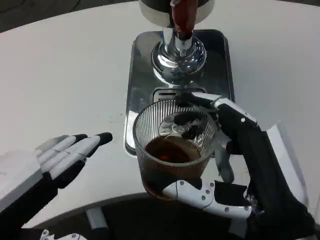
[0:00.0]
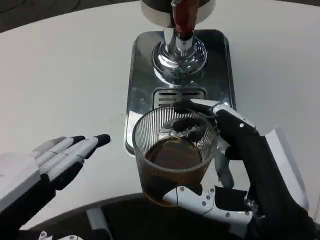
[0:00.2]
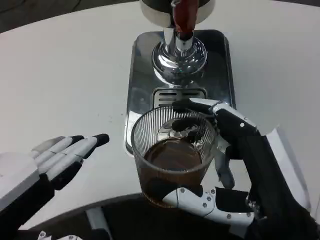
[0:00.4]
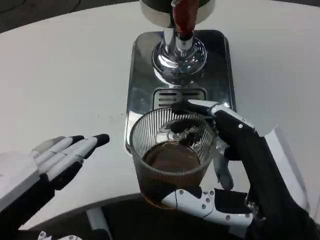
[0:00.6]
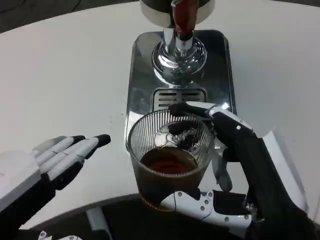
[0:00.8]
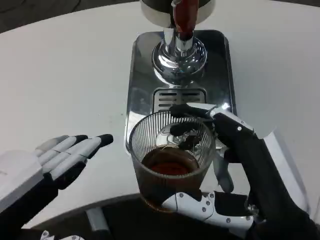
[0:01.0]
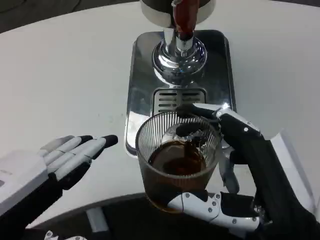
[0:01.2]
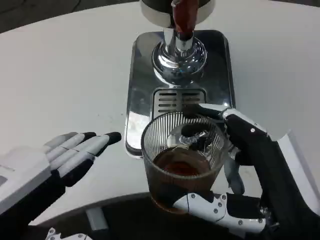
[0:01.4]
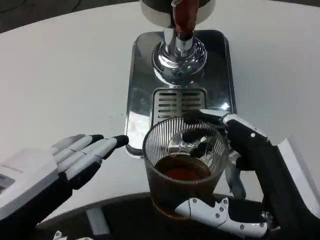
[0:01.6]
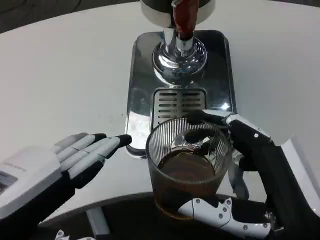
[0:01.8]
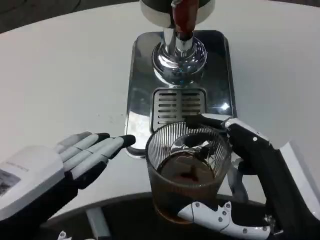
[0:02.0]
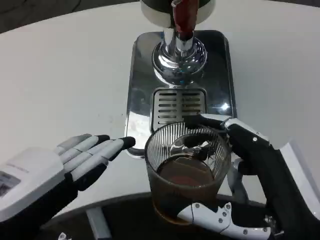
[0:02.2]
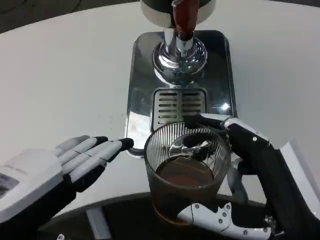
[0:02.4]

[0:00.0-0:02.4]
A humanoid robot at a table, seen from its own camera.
Task of the whole recording: Grasp the cup under the faucet to collect the drink, then remove the cup.
0:00.0 to 0:01.2: Neither hand changes place.

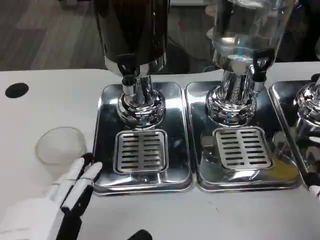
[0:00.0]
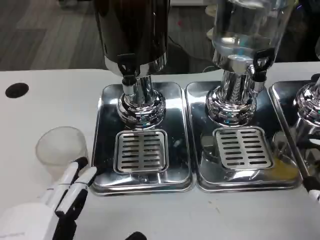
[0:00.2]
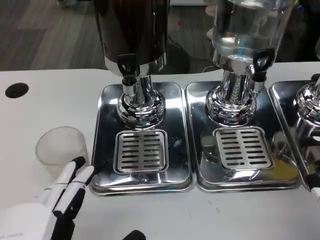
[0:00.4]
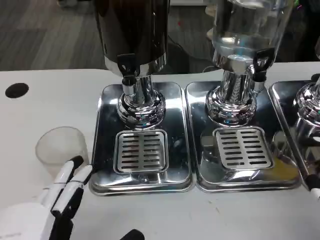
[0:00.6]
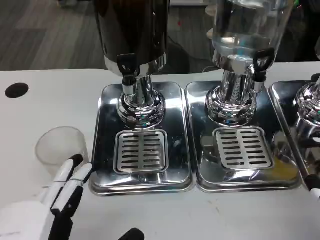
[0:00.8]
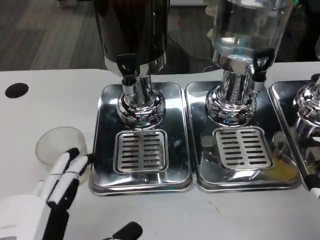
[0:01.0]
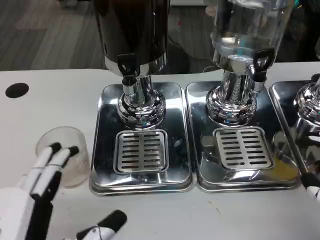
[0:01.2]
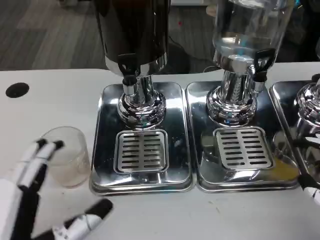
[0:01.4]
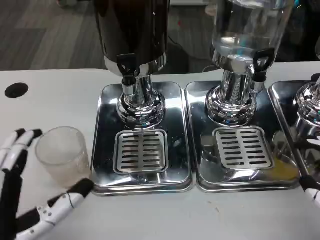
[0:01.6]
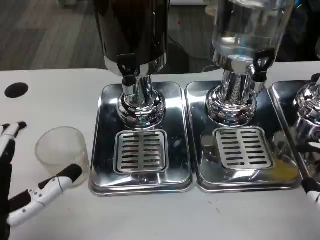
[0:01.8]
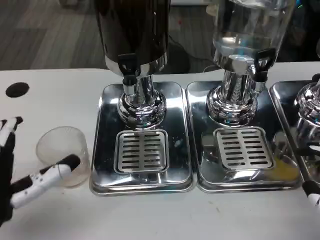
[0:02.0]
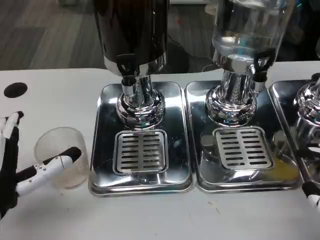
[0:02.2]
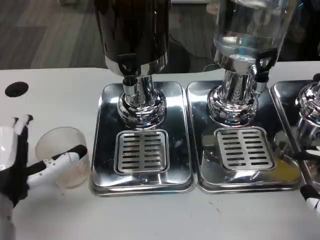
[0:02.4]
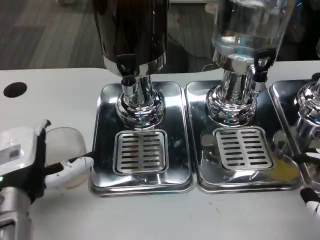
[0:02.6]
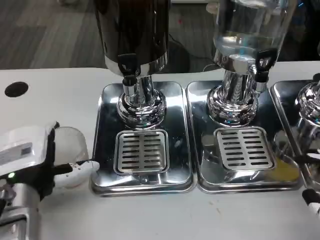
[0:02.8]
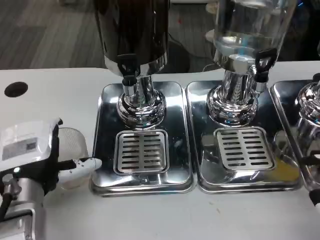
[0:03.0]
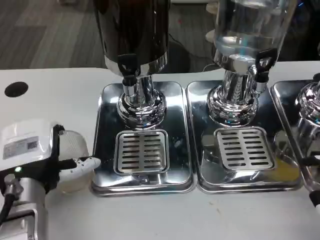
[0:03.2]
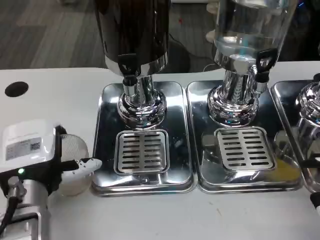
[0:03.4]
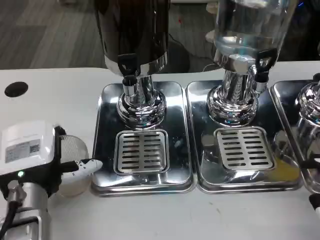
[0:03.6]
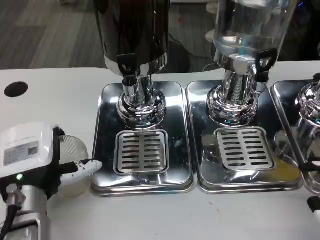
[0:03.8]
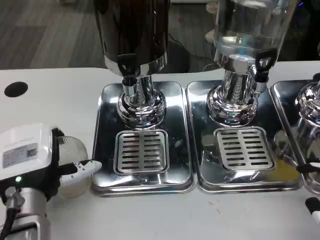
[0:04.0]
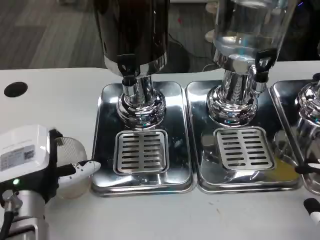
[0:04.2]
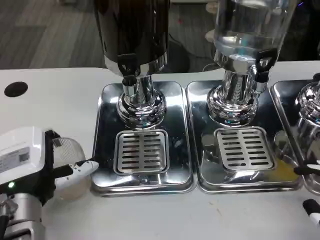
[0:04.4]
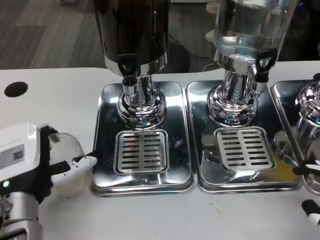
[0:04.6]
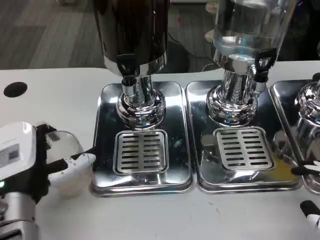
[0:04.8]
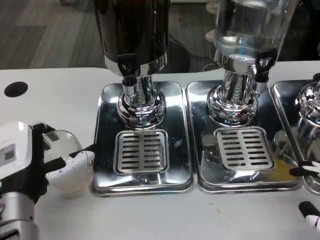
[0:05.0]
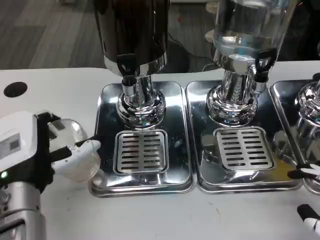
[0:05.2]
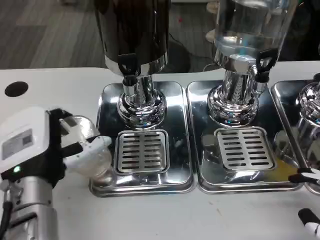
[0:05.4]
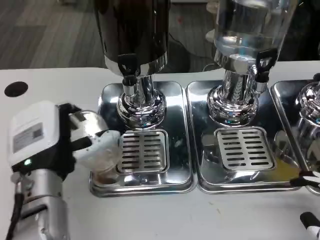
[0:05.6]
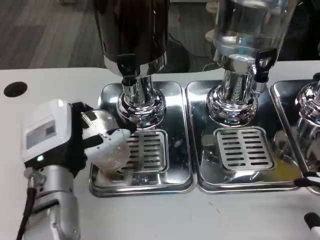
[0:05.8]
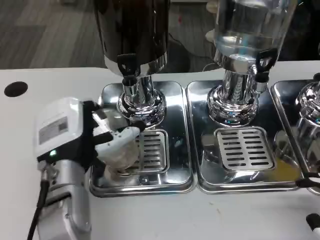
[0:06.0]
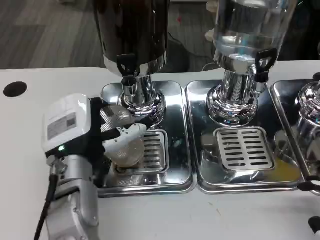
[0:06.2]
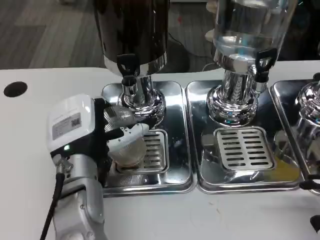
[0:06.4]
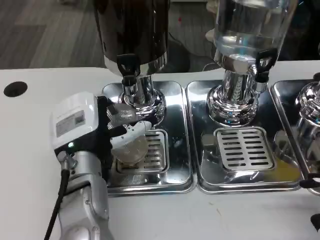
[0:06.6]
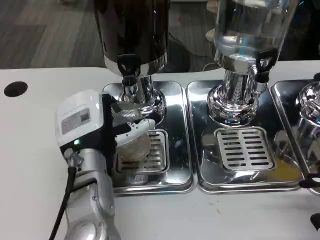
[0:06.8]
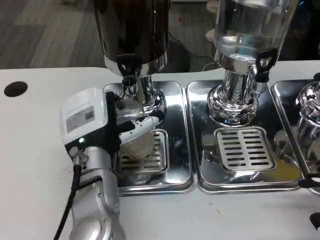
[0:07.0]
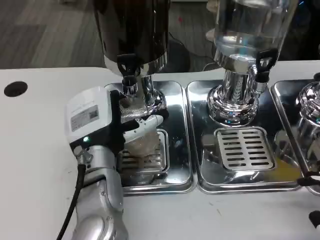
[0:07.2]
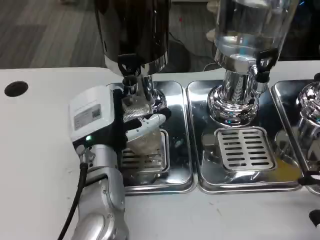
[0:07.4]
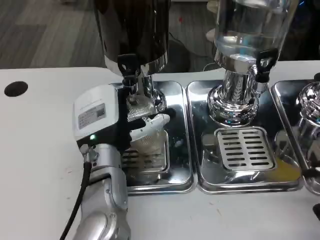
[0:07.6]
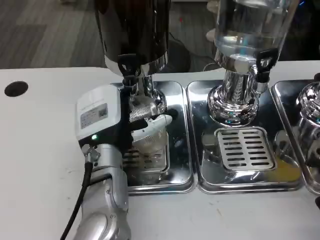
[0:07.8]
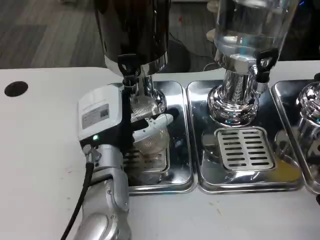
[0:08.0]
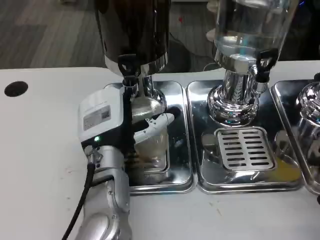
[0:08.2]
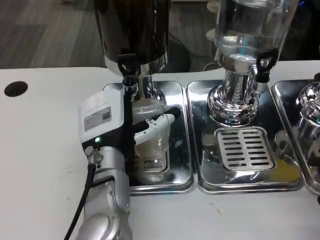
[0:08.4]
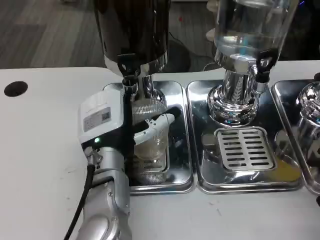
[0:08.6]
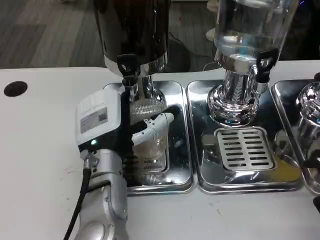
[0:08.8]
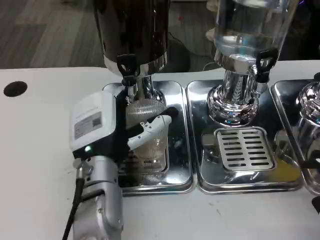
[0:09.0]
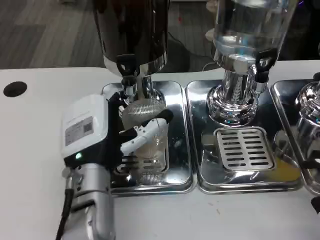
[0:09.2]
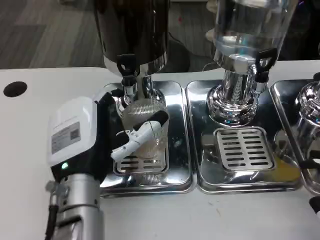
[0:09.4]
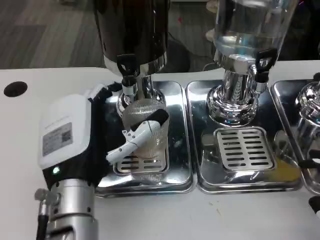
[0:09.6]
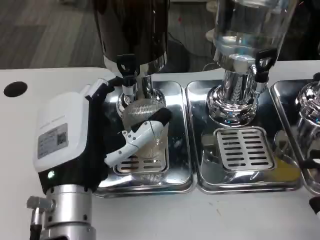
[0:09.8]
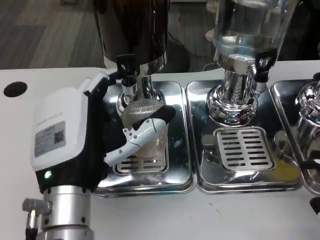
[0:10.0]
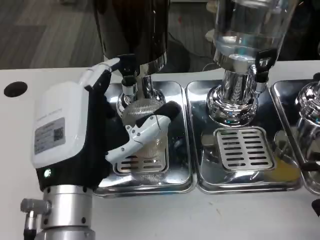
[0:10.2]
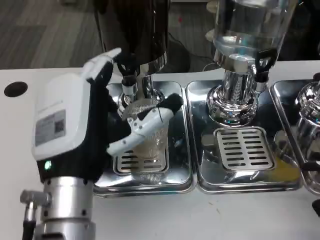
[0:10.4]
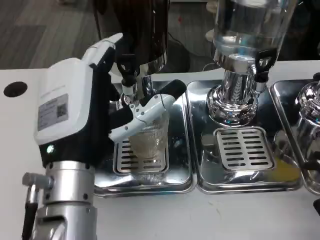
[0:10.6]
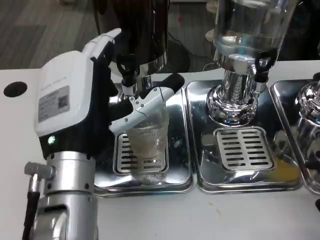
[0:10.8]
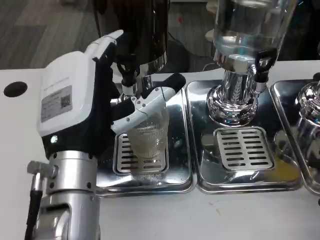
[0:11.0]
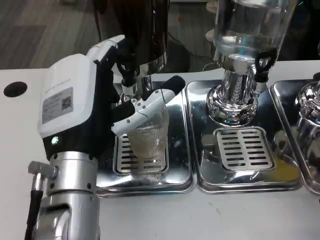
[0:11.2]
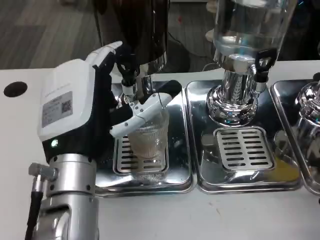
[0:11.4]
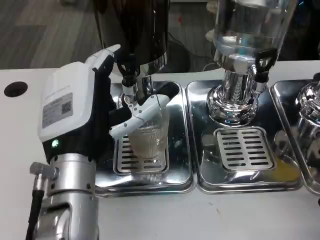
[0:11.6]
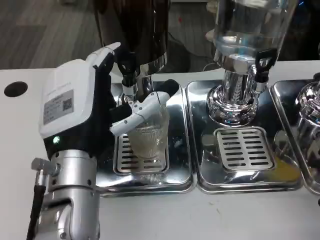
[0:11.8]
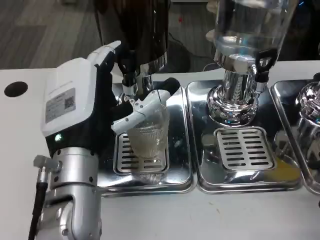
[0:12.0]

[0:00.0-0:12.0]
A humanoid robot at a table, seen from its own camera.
Task of the whole recording: Grasp the cup under the faucet to collect the drink, then remove the cup.
0:00.0 to 0:01.6: The left hand shifts by about 5 cm.
0:01.6 to 0:03.0: The left hand is displaced forward by some 10 cm.
0:03.0 to 0:04.4: There are only small adjustments of the hands.
0:04.4 to 0:06.0: The left hand moves about 5 cm.
0:06.0 to 0:07.6: The left hand ends up about 5 cm from where it was.
0:07.6 to 0:09.0: The hands move only a little.
0:09.0 to 0:10.4: The left hand moves backward and upward, some 10 cm.
0:10.4 to 0:12.0: The hands make only small movements.

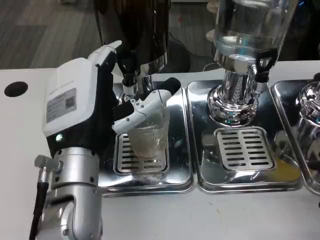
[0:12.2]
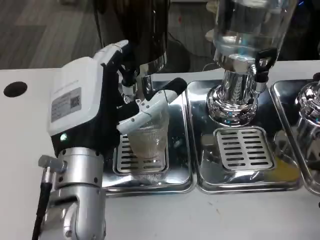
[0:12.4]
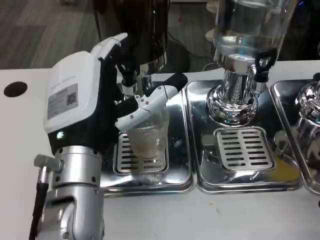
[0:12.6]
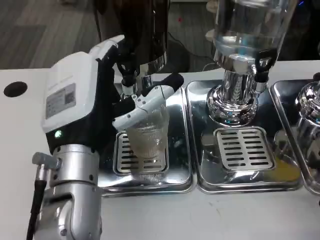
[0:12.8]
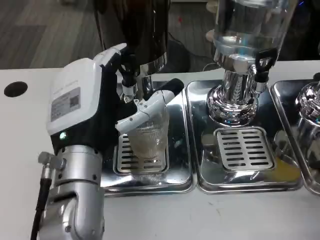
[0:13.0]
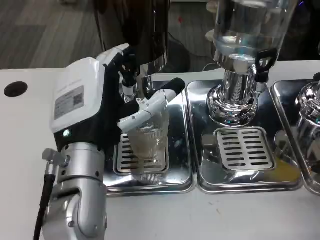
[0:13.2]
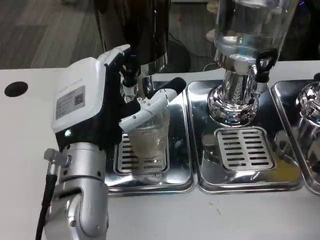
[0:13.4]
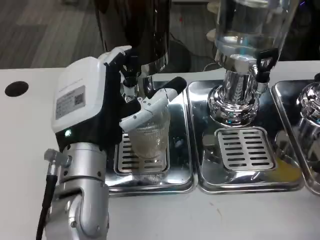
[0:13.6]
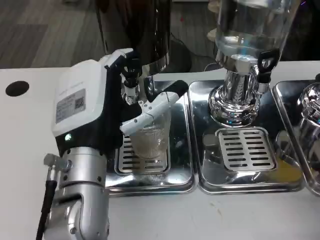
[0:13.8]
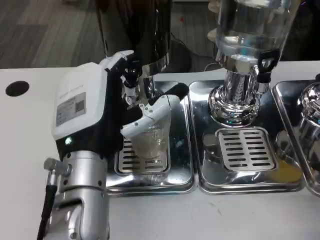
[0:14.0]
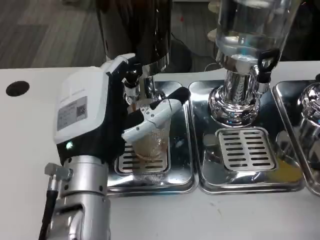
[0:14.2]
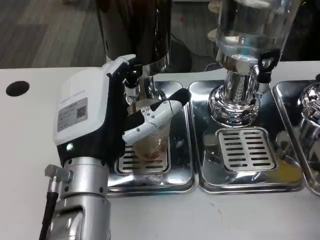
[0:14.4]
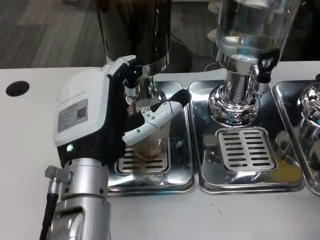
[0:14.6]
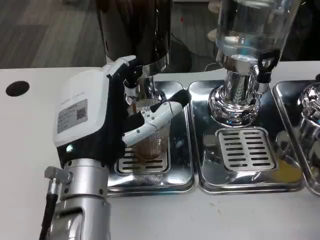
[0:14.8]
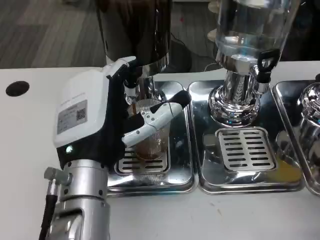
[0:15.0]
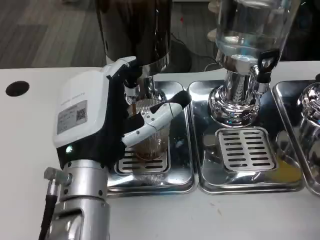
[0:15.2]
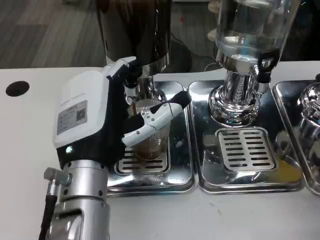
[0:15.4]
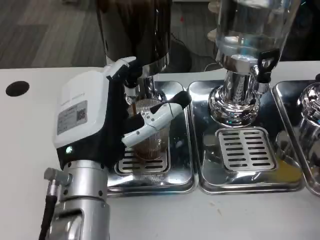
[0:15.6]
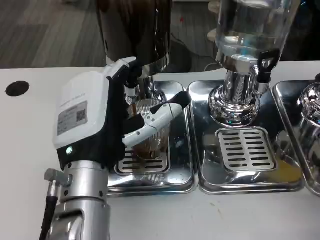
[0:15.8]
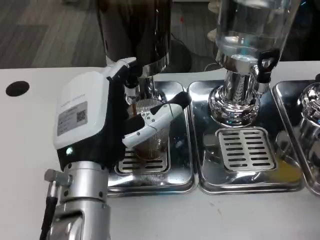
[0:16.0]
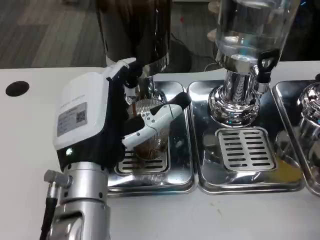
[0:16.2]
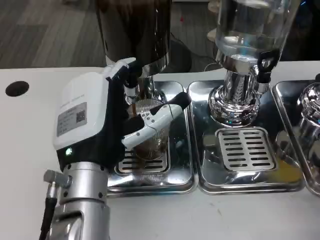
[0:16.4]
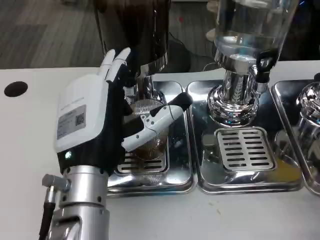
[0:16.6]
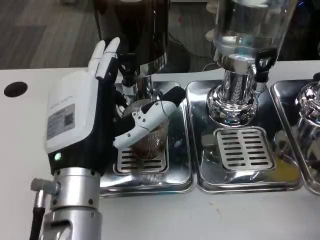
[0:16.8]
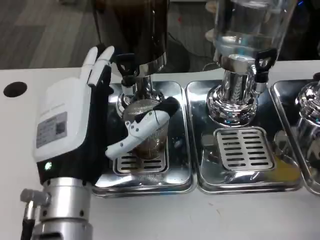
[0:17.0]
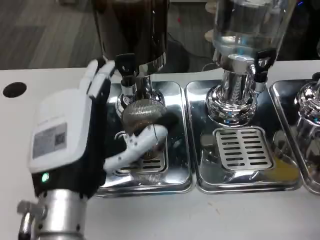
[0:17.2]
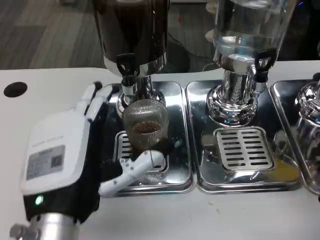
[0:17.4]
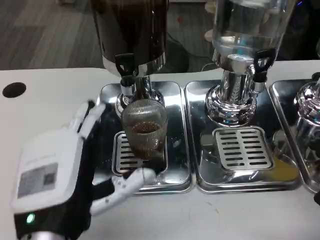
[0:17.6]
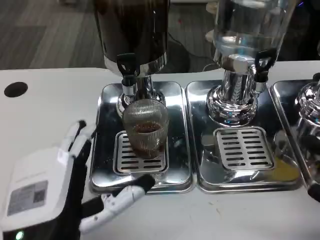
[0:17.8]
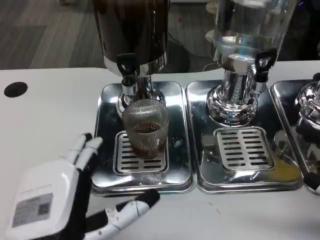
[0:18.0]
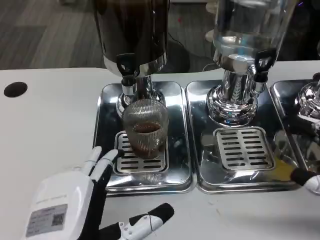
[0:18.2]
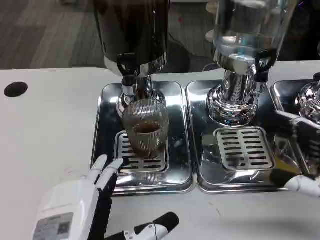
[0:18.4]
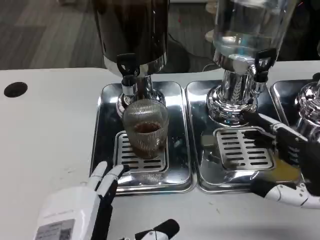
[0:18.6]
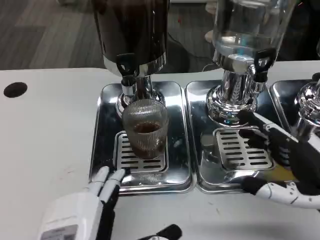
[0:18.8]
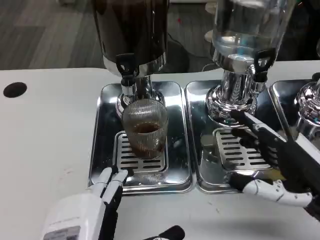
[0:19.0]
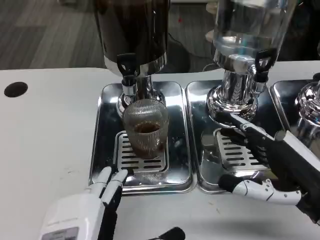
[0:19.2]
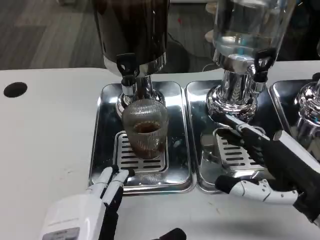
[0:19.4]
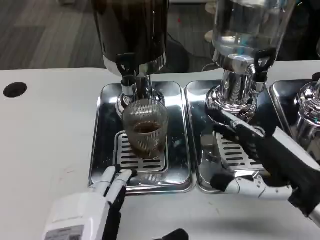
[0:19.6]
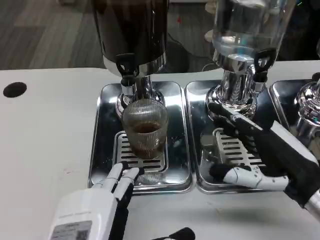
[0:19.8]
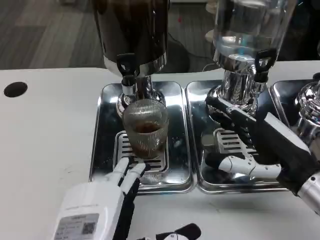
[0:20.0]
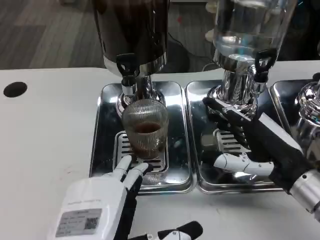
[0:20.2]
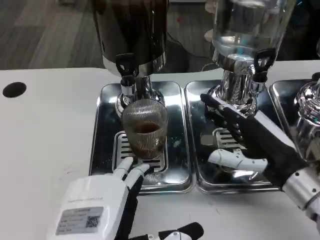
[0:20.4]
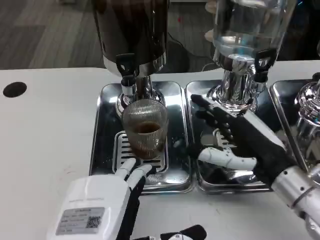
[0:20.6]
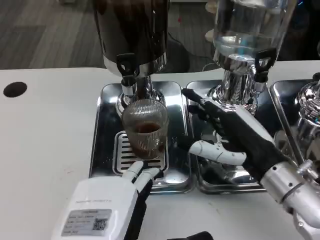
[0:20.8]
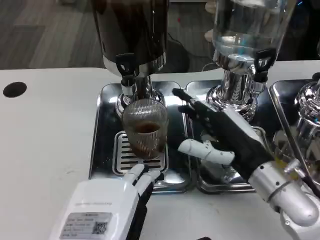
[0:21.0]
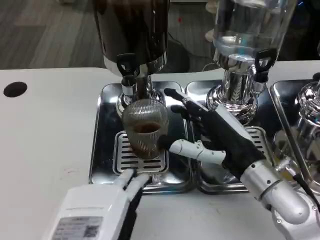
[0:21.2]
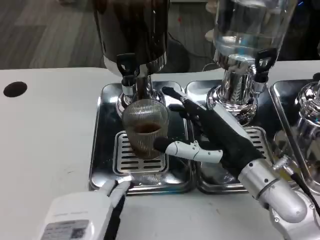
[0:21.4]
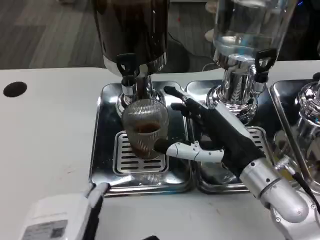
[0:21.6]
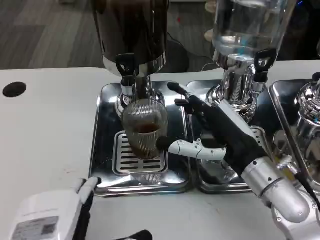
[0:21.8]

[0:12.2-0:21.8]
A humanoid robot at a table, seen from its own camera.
Task of the whole recording: Grasp the cup under the faucet to collect the drink, then remove the cup.
0:13.8 to 0:15.4: The two hands keep their place.
0:17.0 to 0:18.6: The right hand shifts roughly 10 cm forward and to the left. Meanwhile the left hand shifts some 10 cm backward.
0:18.6 to 0:20.2: The right hand is displaced forward and to the left by approximately 10 cm.
0:20.2 to 0:21.8: The right hand heads to the left, covering roughly 5 cm.
